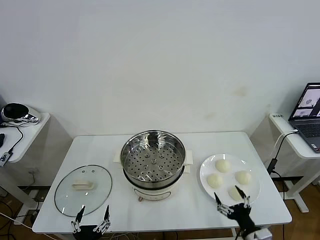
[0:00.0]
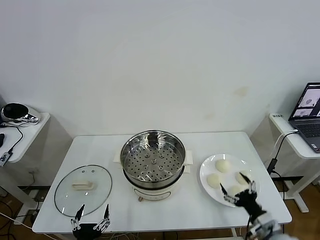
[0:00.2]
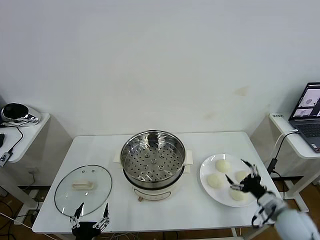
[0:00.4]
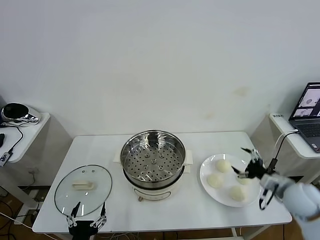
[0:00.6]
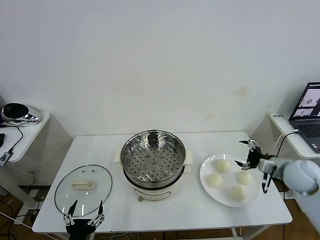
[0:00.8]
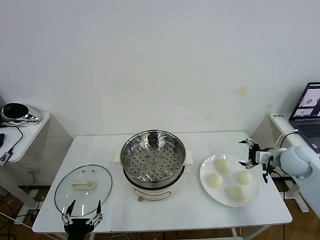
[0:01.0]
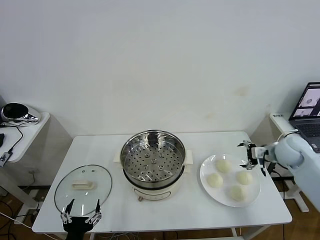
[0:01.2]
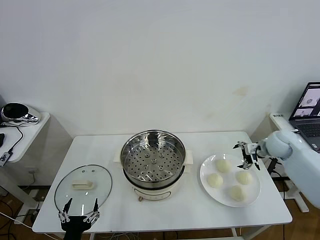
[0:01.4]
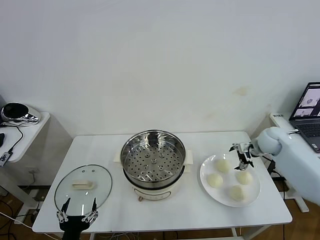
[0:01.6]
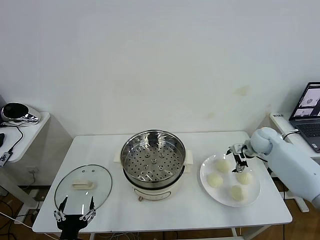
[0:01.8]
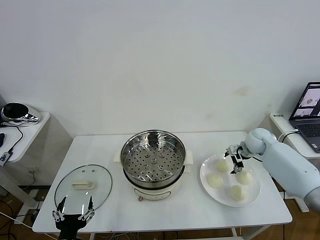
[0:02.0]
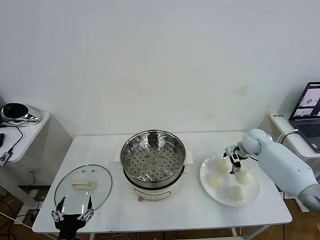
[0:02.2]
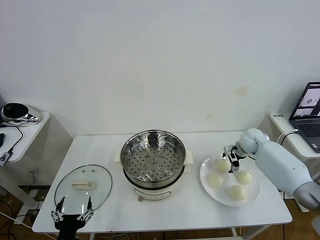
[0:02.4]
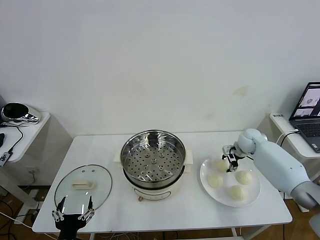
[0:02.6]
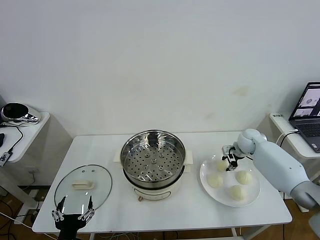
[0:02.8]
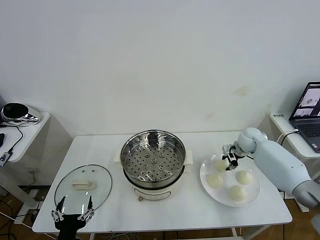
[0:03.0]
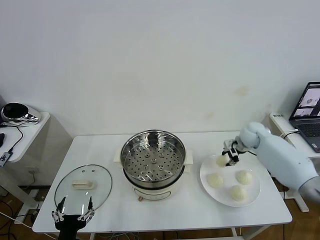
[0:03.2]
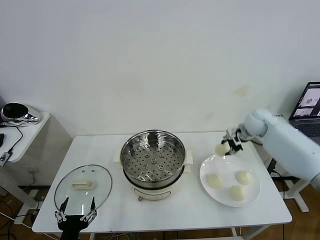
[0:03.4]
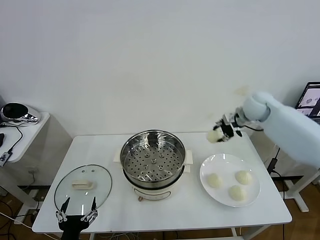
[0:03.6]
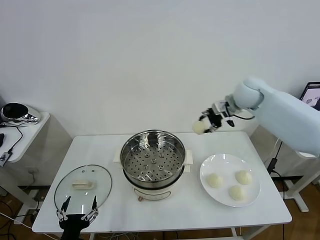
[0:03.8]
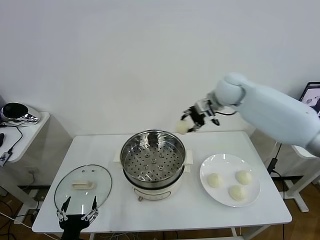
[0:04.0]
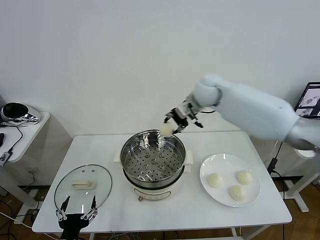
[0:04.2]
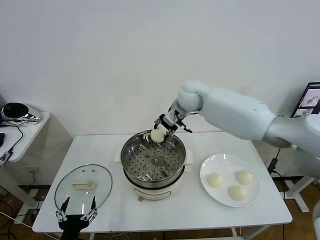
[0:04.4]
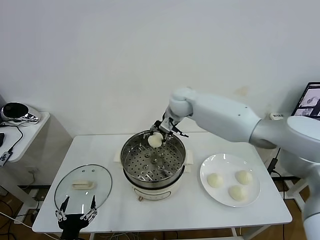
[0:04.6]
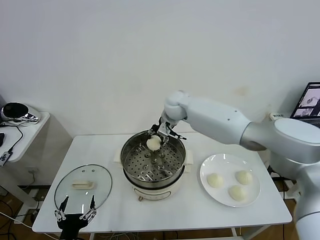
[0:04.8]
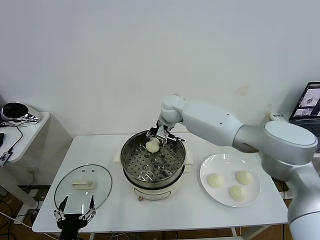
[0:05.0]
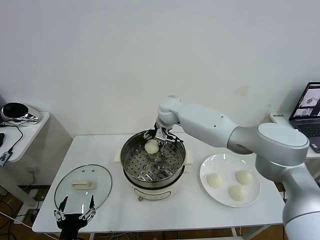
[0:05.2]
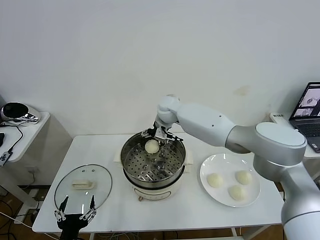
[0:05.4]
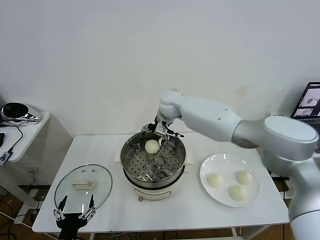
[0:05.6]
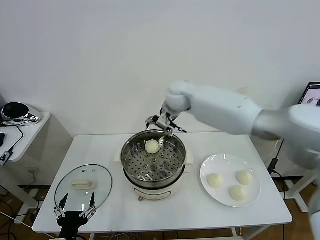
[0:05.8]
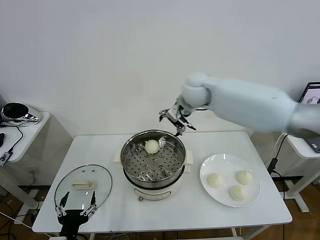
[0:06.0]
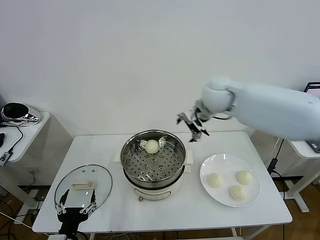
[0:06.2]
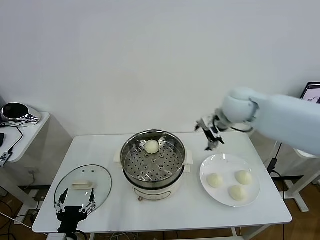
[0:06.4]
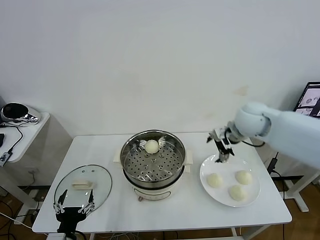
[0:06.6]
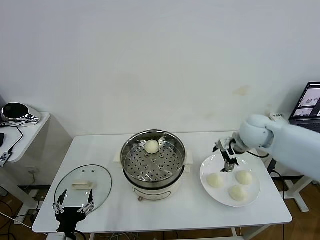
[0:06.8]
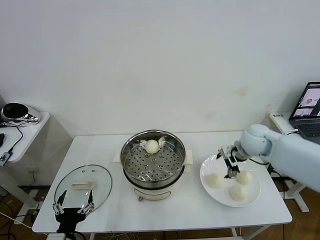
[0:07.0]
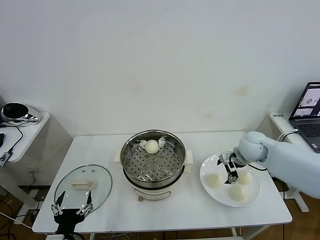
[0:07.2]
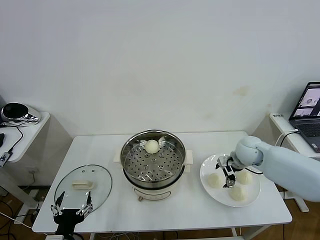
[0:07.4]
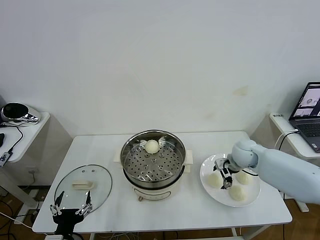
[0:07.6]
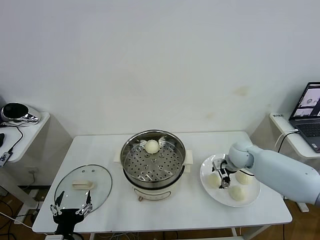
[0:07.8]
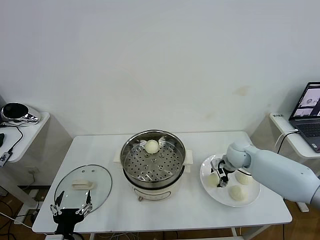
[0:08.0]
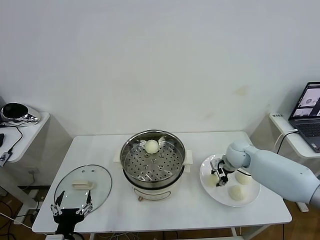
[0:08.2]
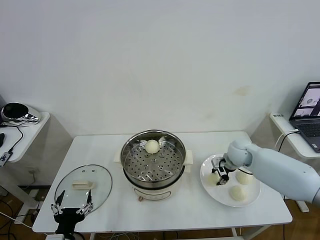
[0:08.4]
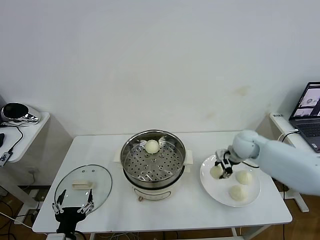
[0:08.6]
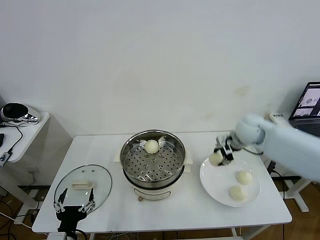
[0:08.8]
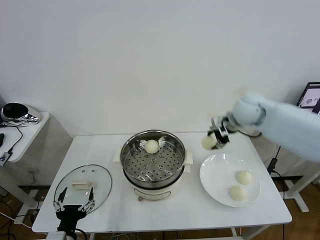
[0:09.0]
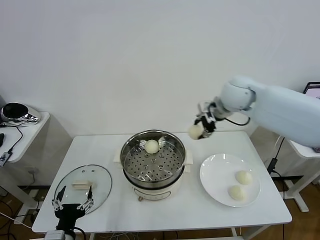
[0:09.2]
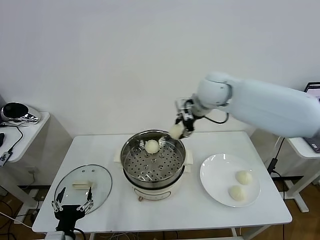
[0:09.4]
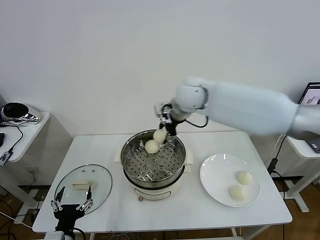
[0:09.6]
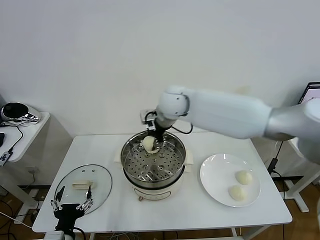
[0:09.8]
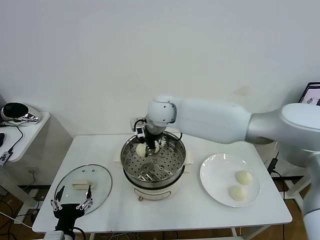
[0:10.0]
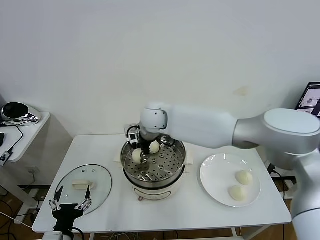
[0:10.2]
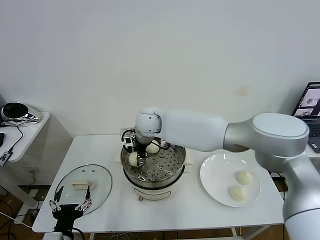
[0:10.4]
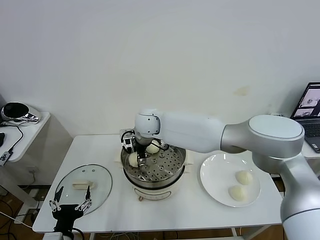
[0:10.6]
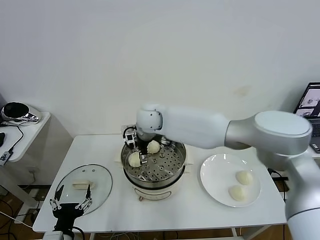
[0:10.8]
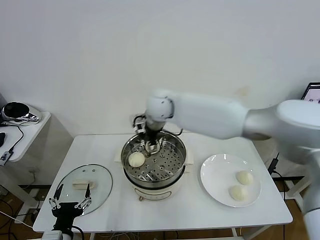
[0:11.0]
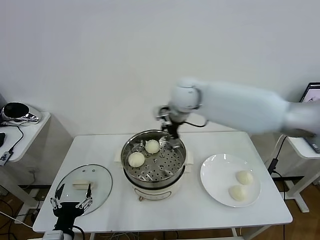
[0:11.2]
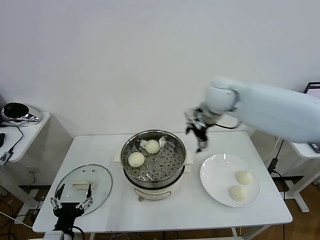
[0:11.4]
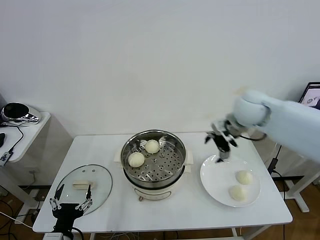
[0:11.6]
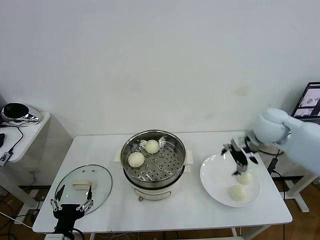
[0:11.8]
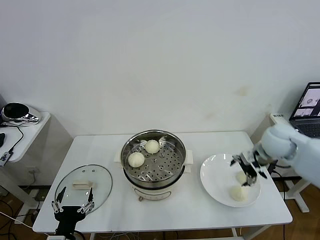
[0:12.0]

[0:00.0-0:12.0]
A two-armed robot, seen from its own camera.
Task of the whole recording: take steamed baozi put them in steamer then cover it.
Step, 0.0 to 2.6 s: Grasp the baozi in the plate with right gripper.
Step, 2.8 to 5.2 s: Place the baozi on the steamer with right gripper.
Step, 5.4 to 8.2 s: Grasp the baozi in the plate with right gripper.
Step, 8.4 to 10.6 s: Place the baozi on the steamer with right gripper.
1.6 to 3.0 s: The right gripper ends up roughly 5 cm from where it was, and closes up.
3.0 to 4.4 s: The right gripper heads to the left and upward, covering approximately 30 cm.
4.4 to 6.0 s: The right gripper shifts roughly 10 cm upward and to the right, and opens up.
6.0 to 7.6 s: The right gripper goes about 30 cm downward and to the right.
7.6 to 9.0 s: The right gripper moves upward, approximately 20 cm, and closes.
9.0 to 10.4 s: The right gripper shifts roughly 30 cm to the left.
10.4 to 12.0 s: The right gripper is displaced to the right by approximately 40 cm, and opens up.

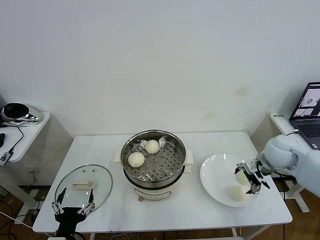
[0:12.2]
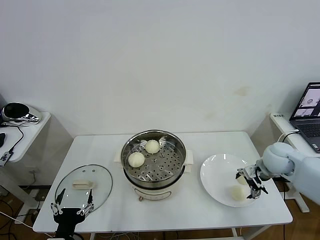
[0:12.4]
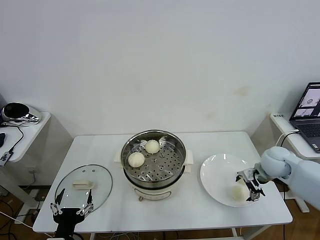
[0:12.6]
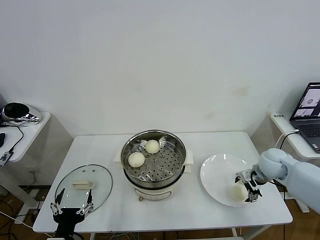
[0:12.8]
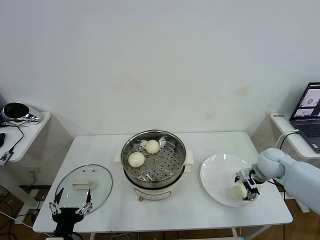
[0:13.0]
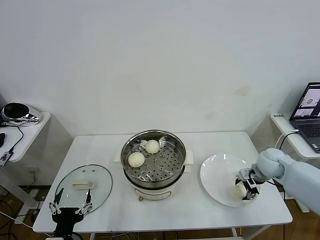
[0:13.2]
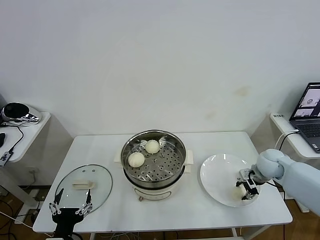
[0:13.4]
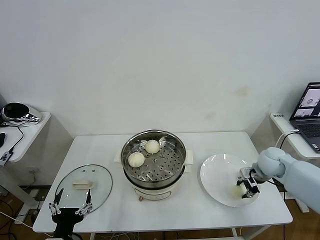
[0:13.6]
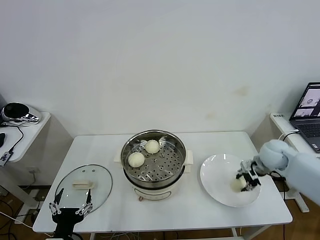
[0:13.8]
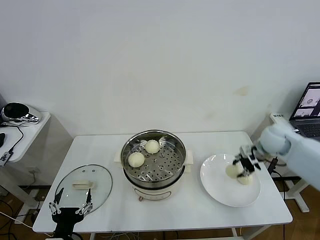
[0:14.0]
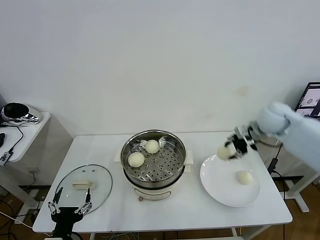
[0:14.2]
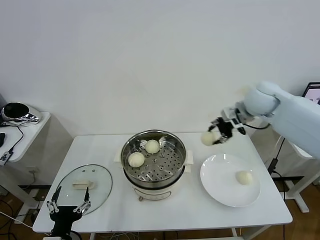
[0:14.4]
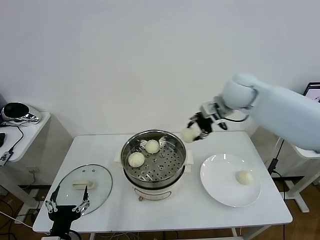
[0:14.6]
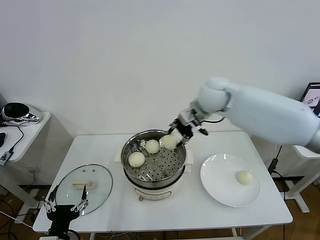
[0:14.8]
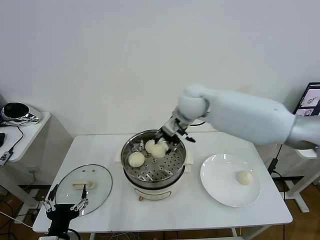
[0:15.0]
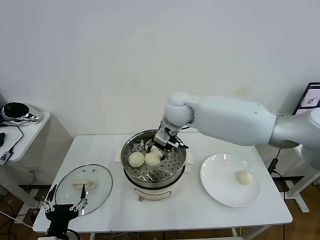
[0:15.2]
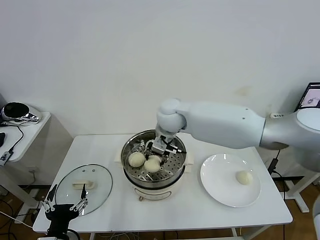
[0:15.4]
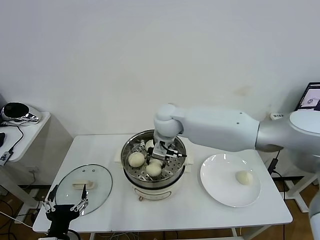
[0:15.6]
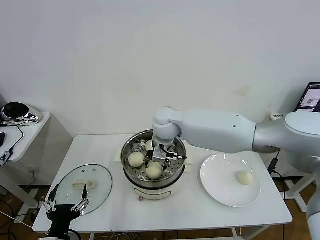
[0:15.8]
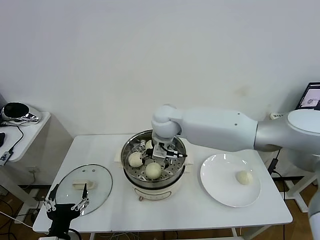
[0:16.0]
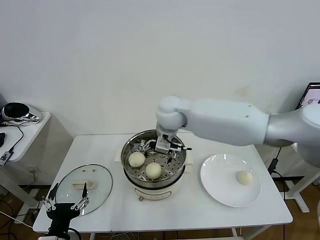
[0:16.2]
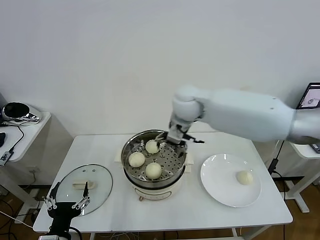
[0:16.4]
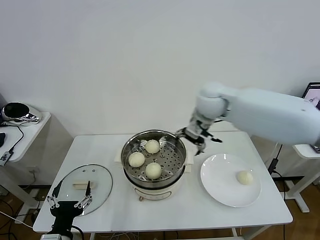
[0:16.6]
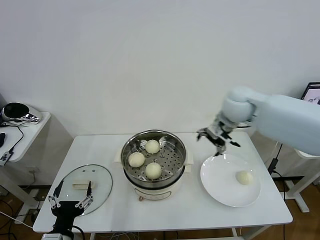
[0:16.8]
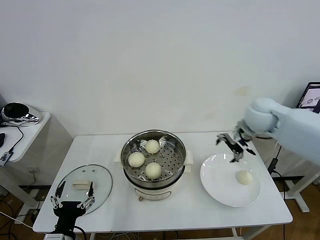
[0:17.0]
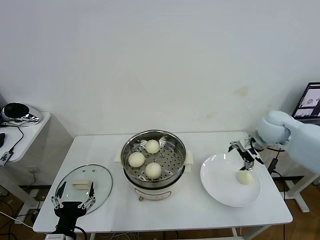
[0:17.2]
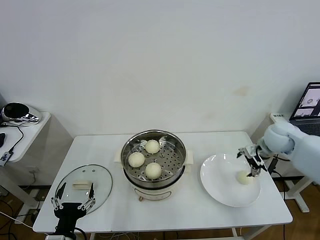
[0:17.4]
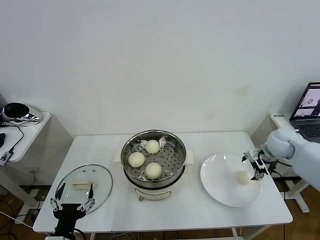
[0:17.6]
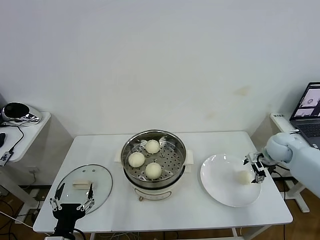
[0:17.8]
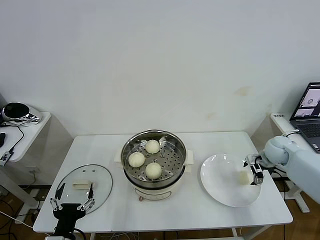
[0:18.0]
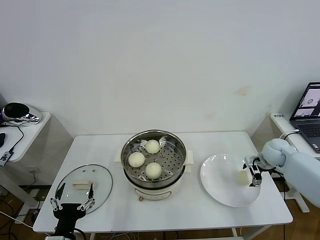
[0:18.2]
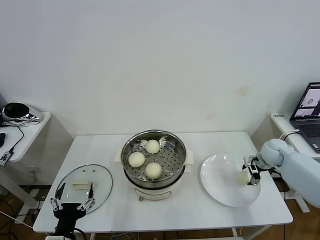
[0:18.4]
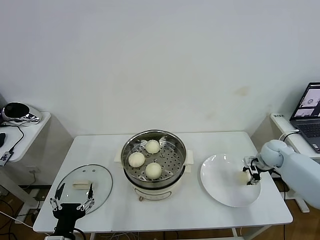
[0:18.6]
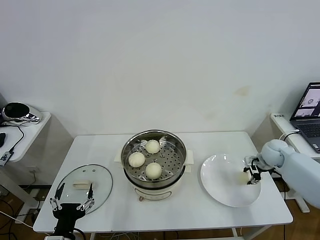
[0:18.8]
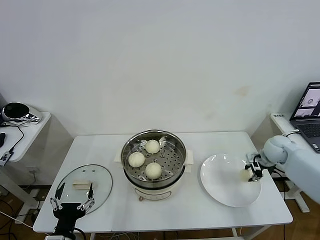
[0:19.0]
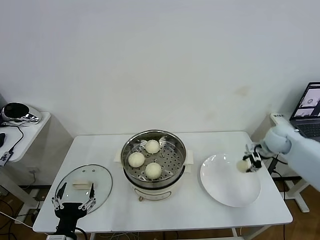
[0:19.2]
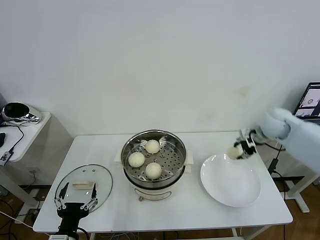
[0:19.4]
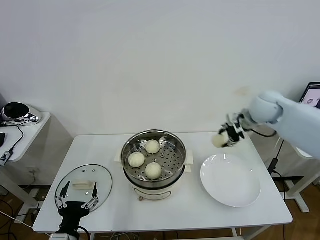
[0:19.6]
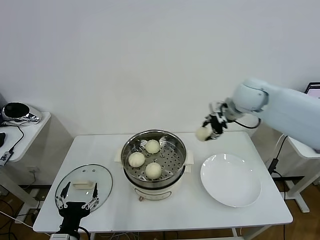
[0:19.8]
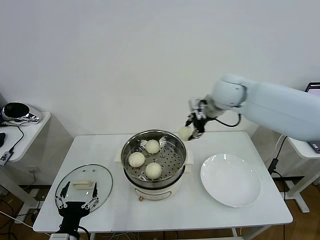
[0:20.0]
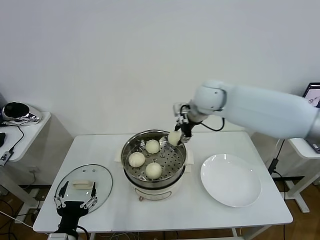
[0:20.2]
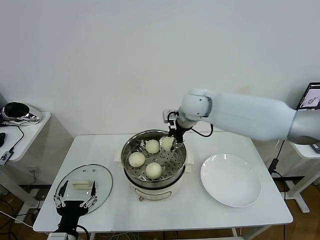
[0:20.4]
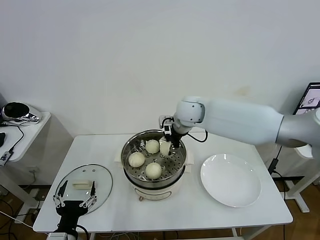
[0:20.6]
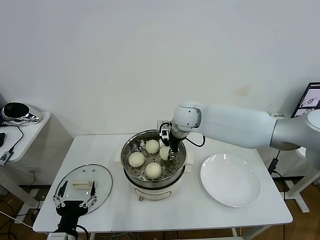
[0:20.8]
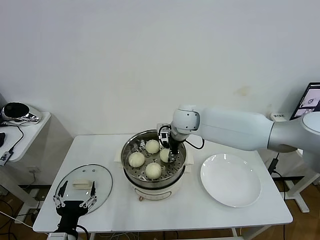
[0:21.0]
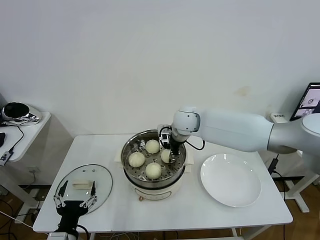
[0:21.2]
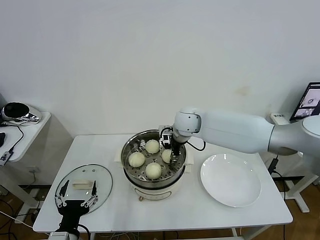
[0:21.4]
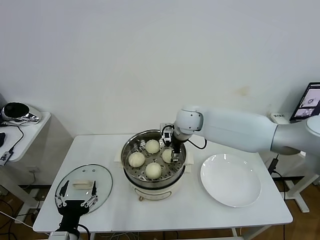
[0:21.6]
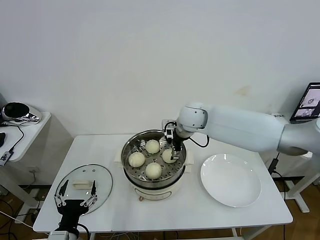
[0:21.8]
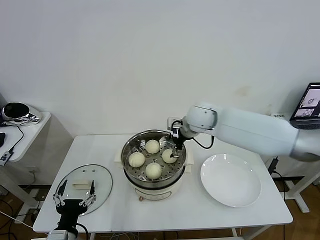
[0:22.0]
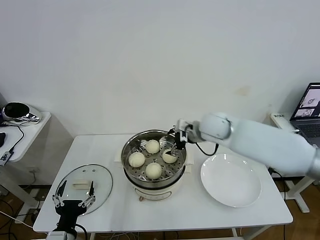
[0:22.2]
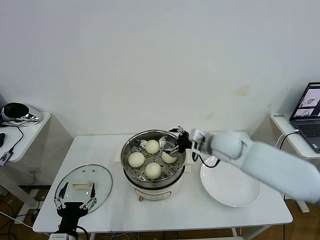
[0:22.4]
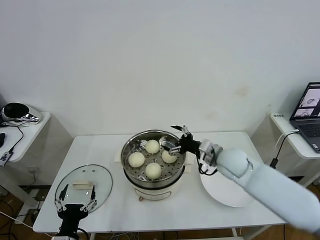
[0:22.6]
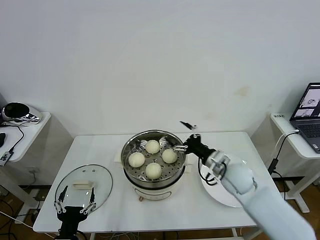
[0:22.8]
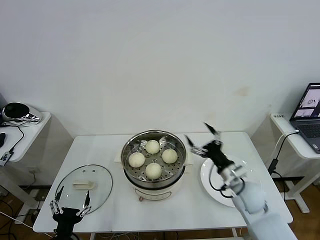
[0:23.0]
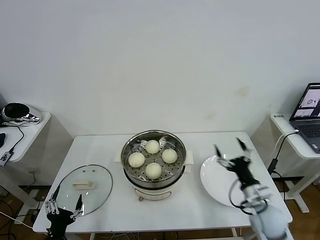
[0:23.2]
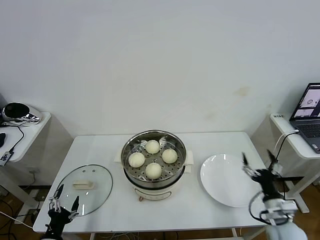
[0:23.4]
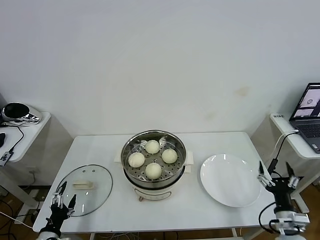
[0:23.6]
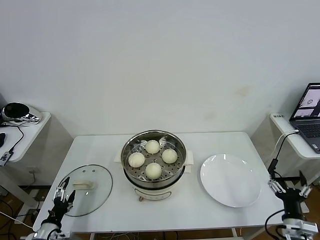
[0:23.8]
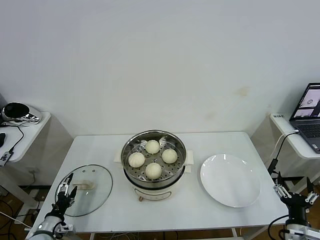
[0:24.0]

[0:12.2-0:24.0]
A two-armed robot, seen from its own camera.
Task of the whole recording: take steamed baozi put them in steamer then cover it.
Step, 13.6 to 16.0 s: Place the baozi on the steamer with right gripper.
Step, 16.2 to 18.6 s: Grasp the baozi in the plate with right gripper.
Step, 18.8 to 21.6 s: Place the baozi on the steamer with right gripper.
12.2 to 13.6 s: The right gripper shifts some 5 cm downward, and closes its fingers.
13.6 to 15.2 s: The right gripper moves to the left and upward, some 40 cm.
15.2 to 16.6 s: The right gripper heads to the right, covering some 10 cm, and opens.
16.6 to 18.2 s: The right gripper goes approximately 35 cm to the right and downward.
18.2 to 19.6 s: The right gripper shifts some 25 cm upward and to the left, and closes up.
19.6 to 21.0 s: The right gripper moves to the left, about 25 cm.
21.0 to 22.6 s: The right gripper is displaced to the right, backward and downward by approximately 20 cm, and opens up.
22.6 to 24.0 s: The left gripper is displaced to the left, downward and forward by approximately 20 cm. The right gripper is displaced backward, to the right and downward by roughly 35 cm.
